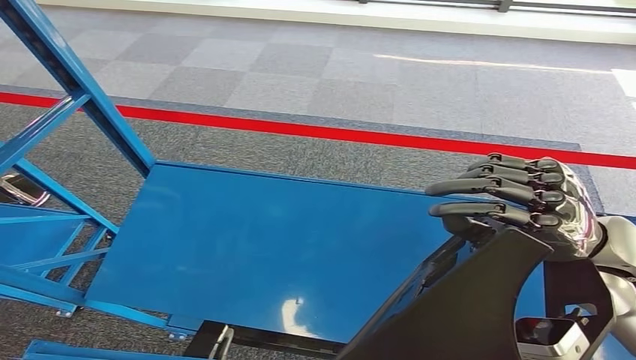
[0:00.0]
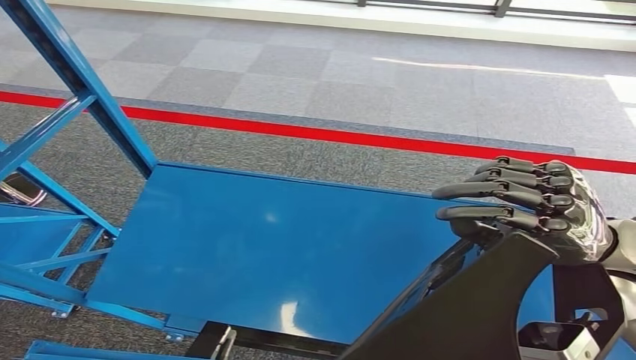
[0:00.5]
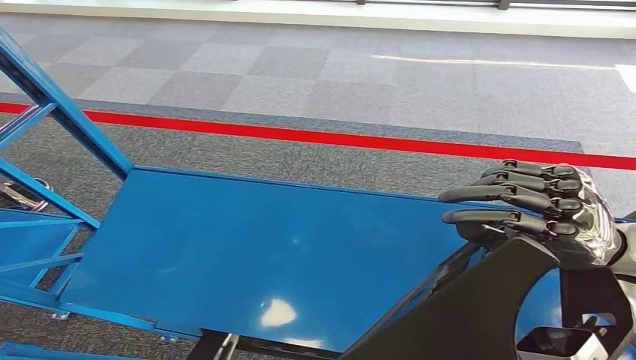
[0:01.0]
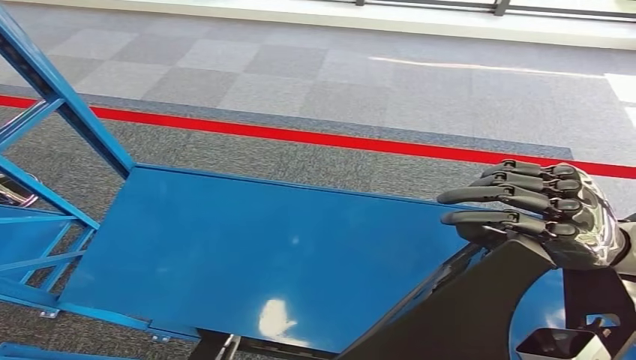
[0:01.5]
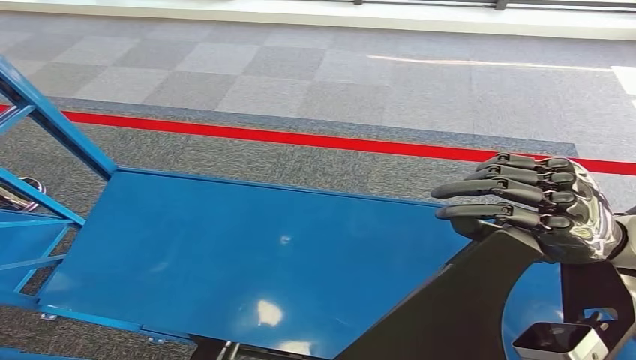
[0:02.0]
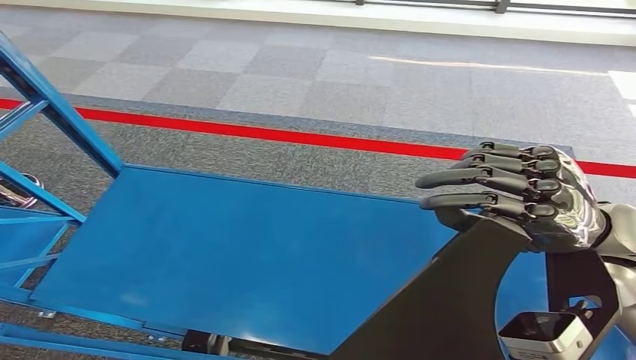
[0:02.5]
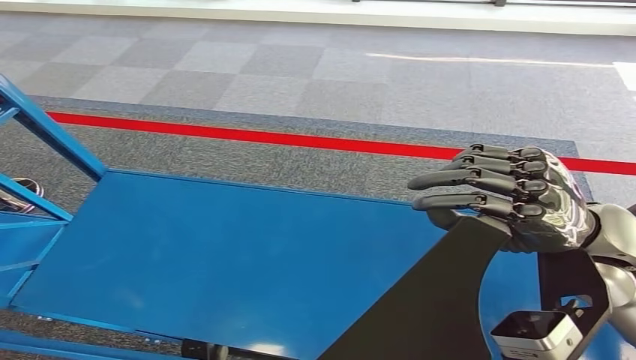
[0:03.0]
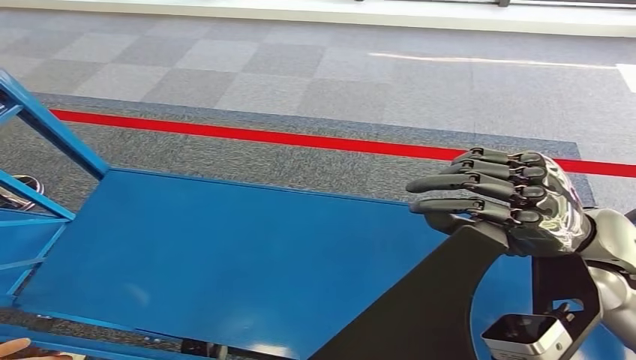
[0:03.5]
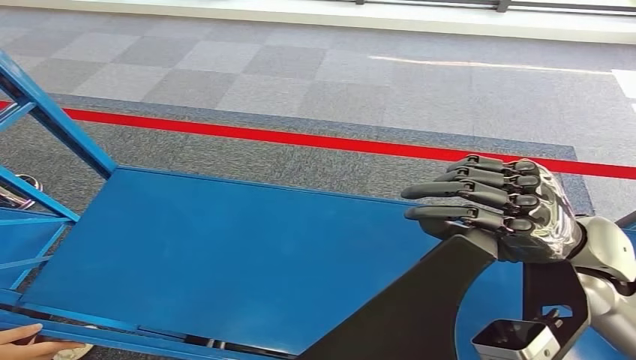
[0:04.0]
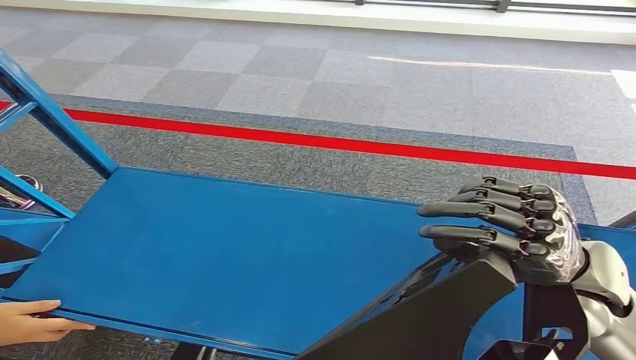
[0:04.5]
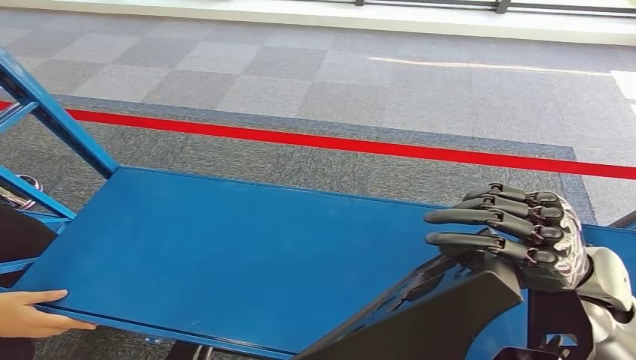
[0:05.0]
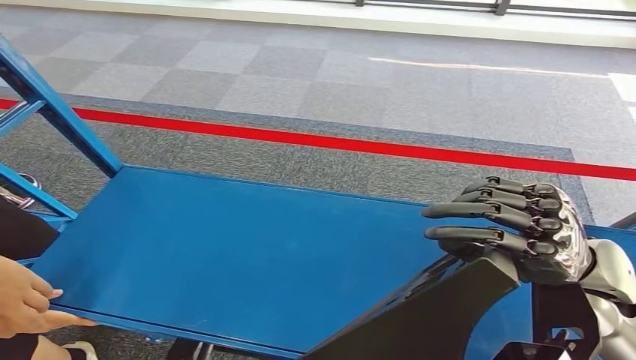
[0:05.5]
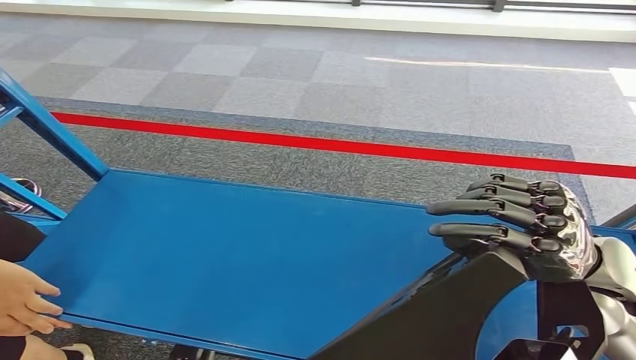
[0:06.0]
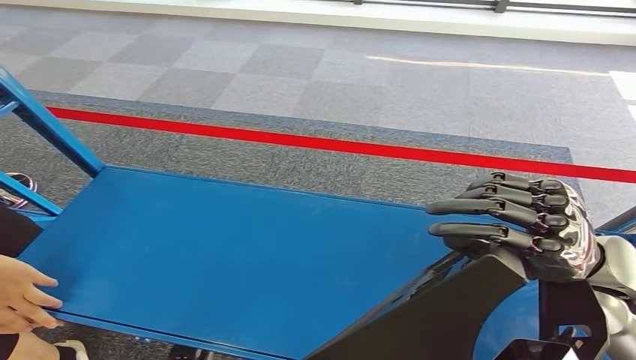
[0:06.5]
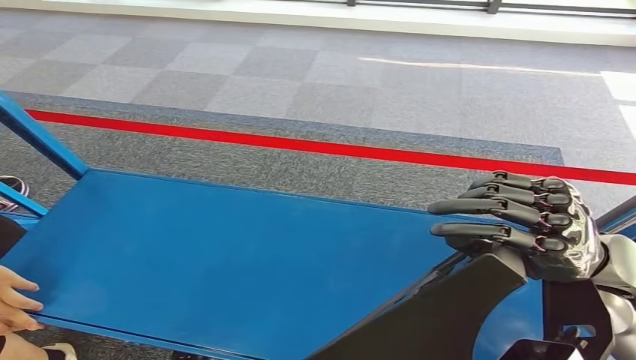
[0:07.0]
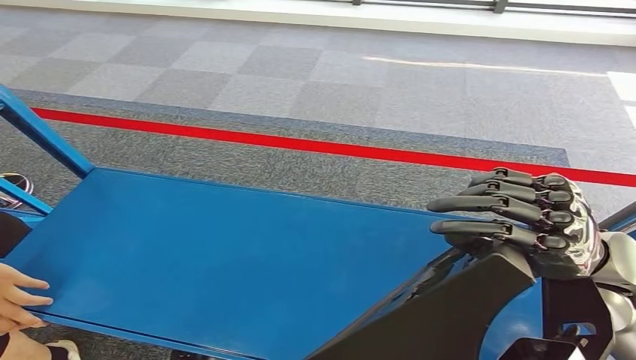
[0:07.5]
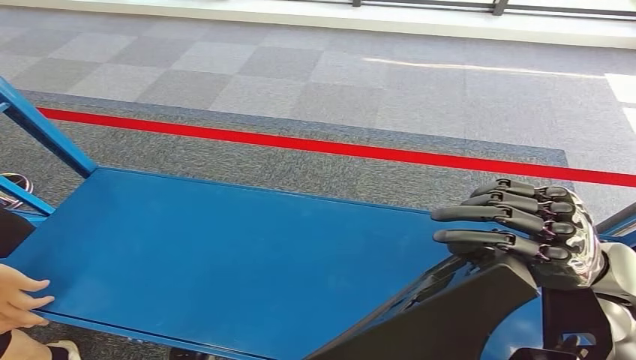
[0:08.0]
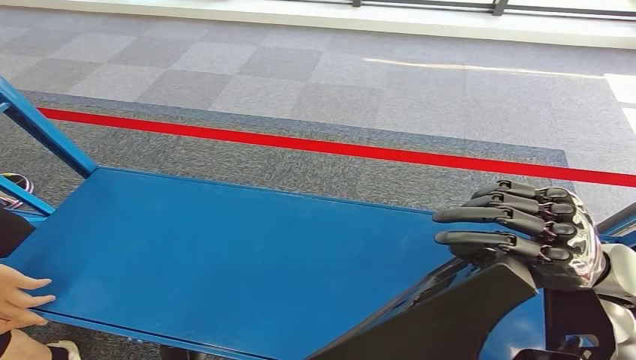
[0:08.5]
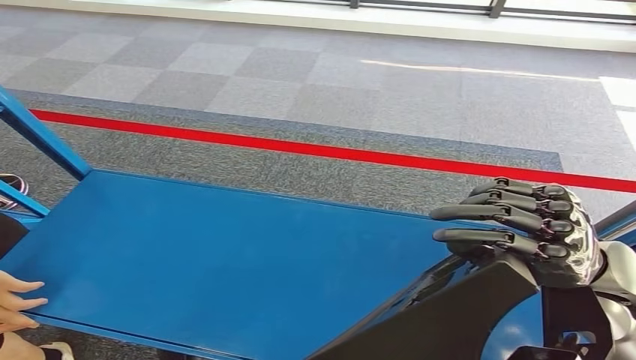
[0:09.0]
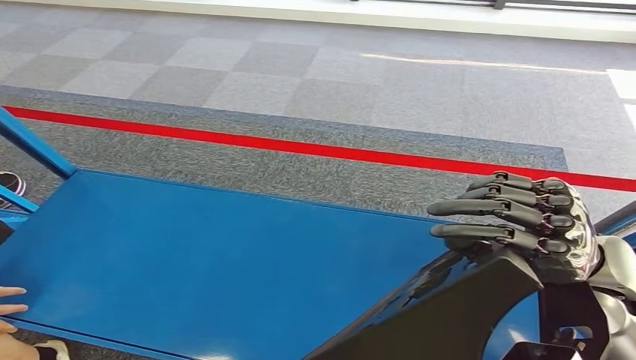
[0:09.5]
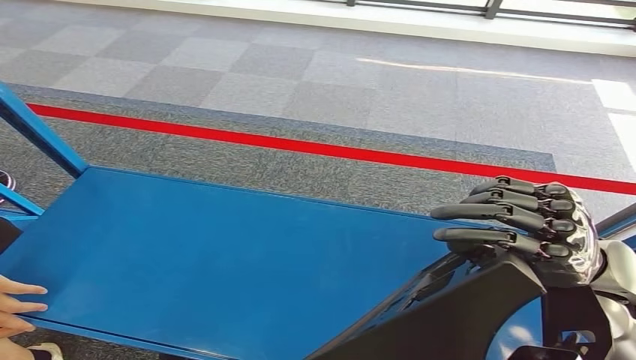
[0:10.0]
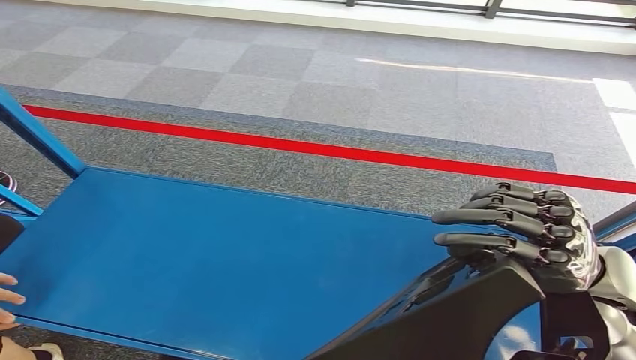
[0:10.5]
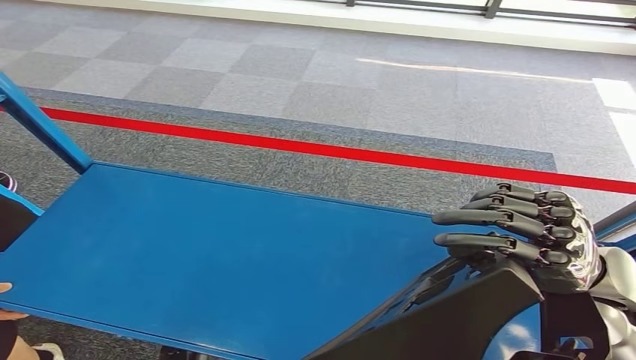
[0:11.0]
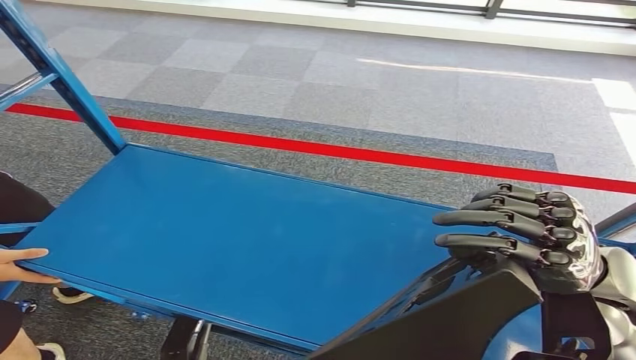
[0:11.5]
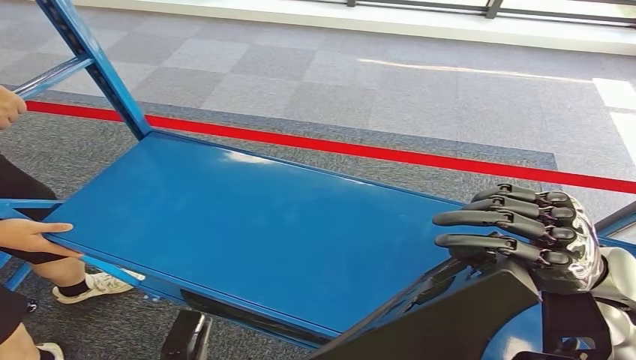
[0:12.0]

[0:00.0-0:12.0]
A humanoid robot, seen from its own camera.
0:06.0 to 0:08.0: Neither hand changes place.
0:08.0 to 0:10.0: The hands stay close to where they were, moving slightly.

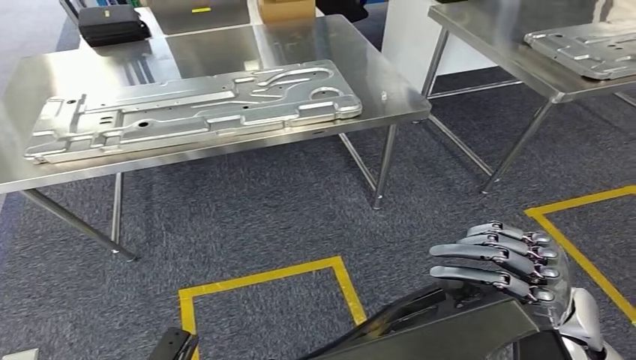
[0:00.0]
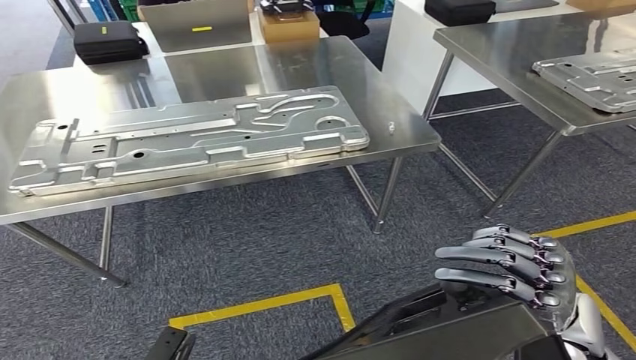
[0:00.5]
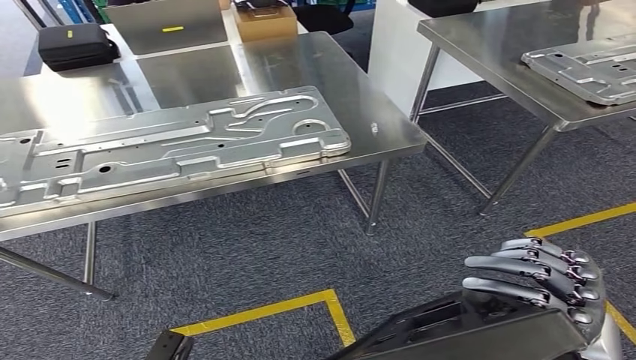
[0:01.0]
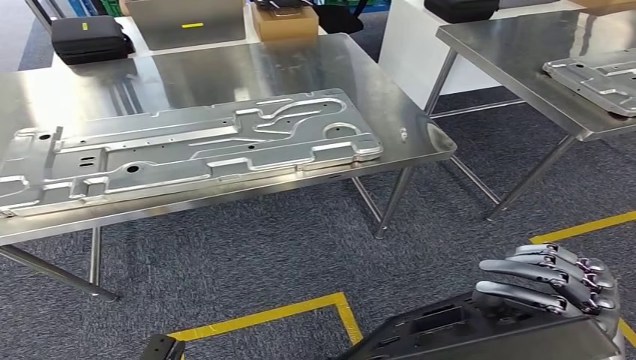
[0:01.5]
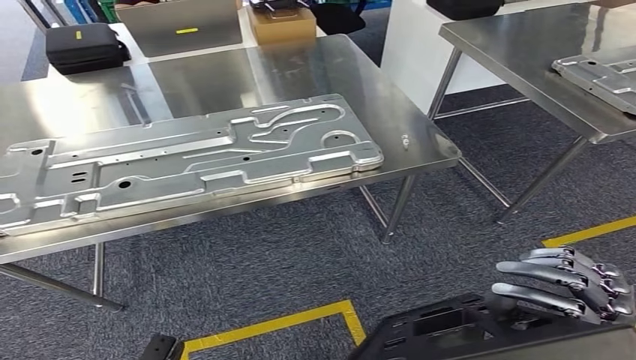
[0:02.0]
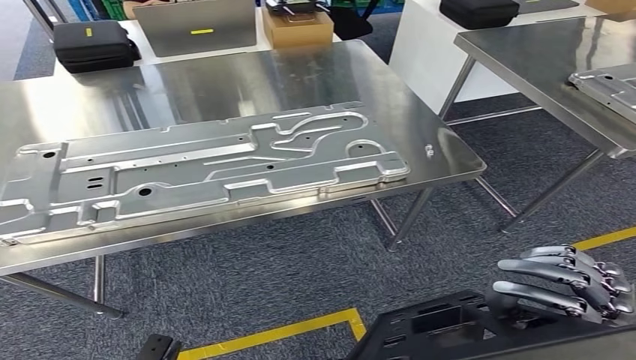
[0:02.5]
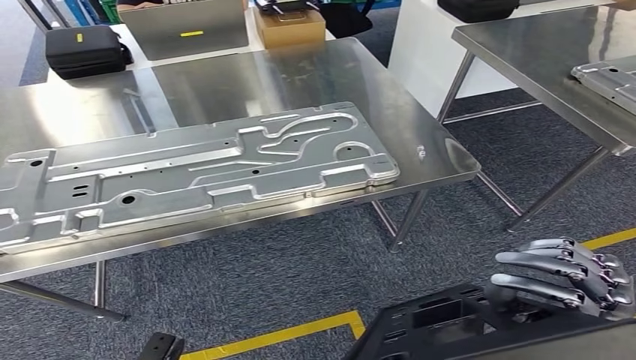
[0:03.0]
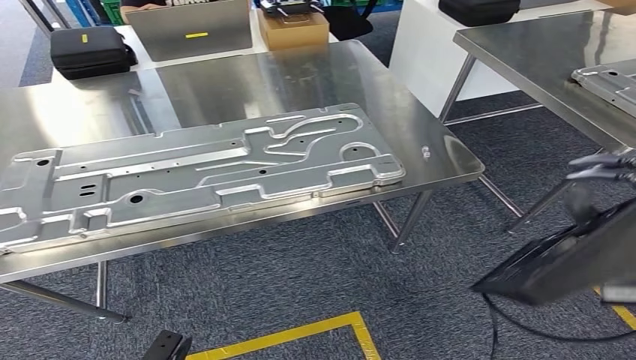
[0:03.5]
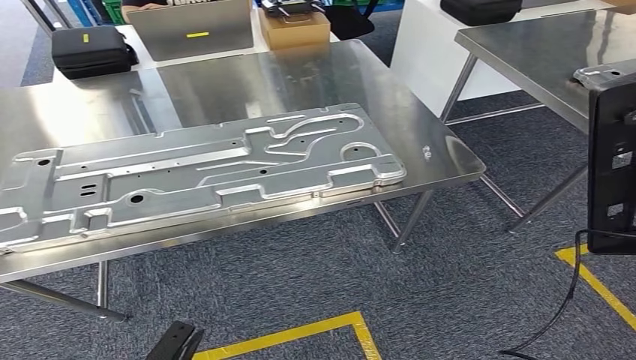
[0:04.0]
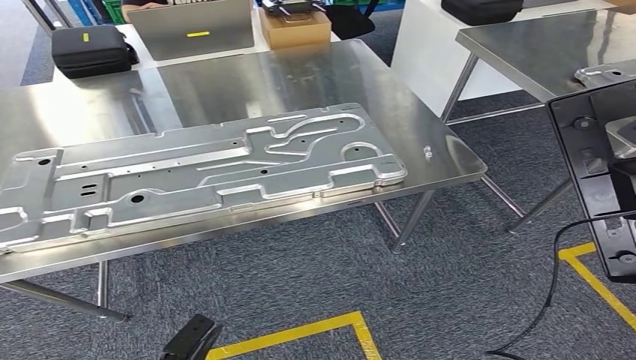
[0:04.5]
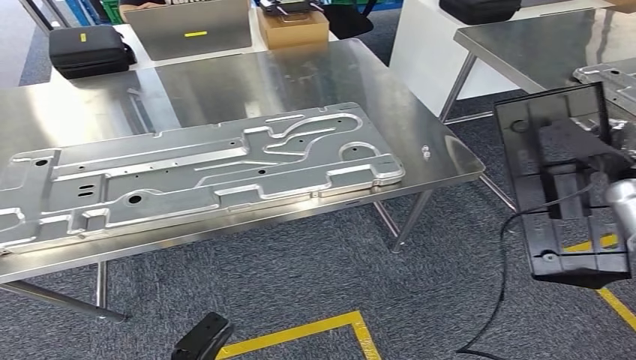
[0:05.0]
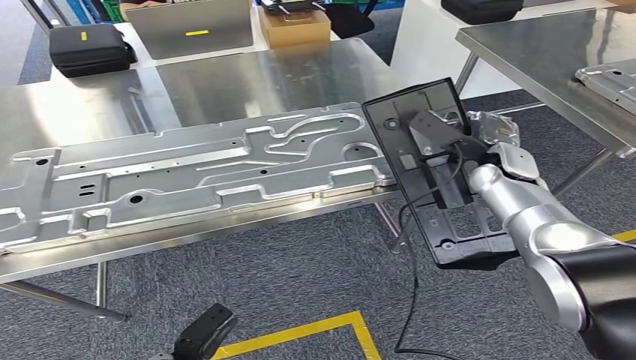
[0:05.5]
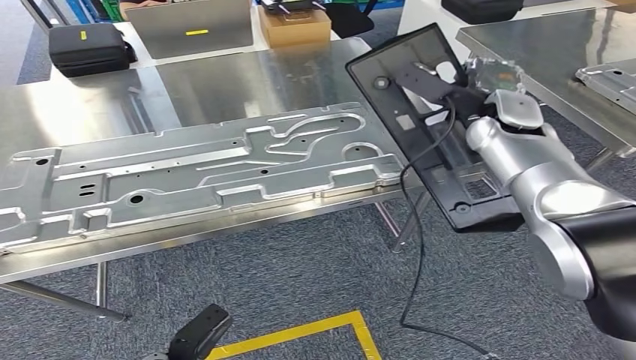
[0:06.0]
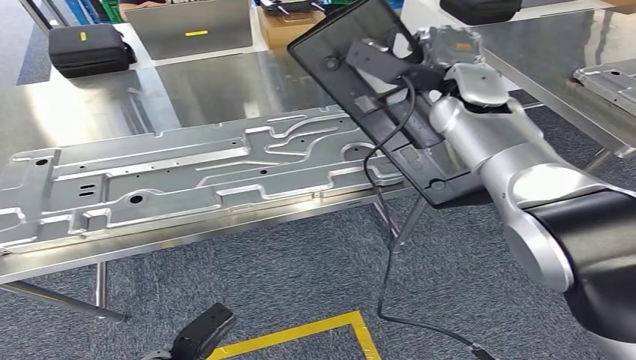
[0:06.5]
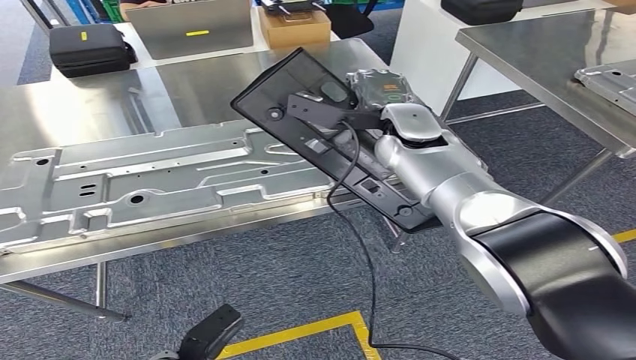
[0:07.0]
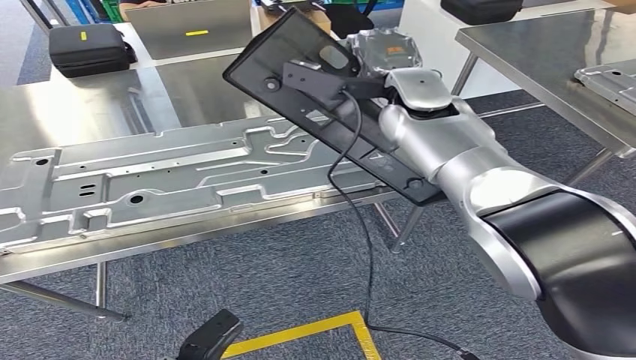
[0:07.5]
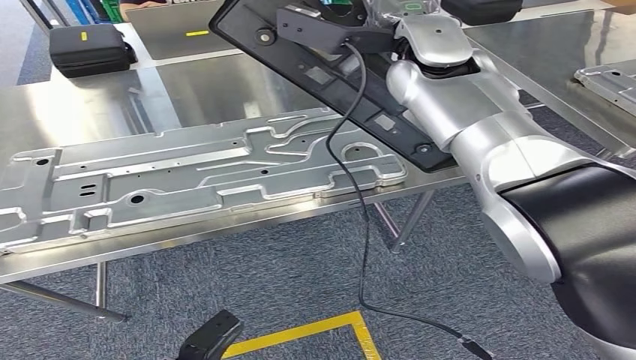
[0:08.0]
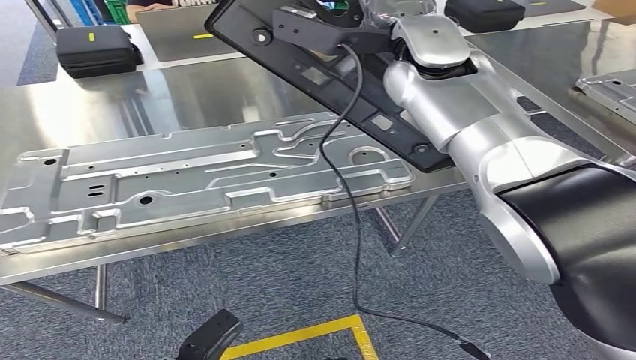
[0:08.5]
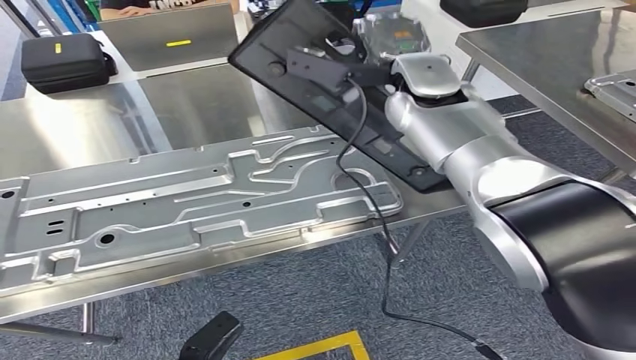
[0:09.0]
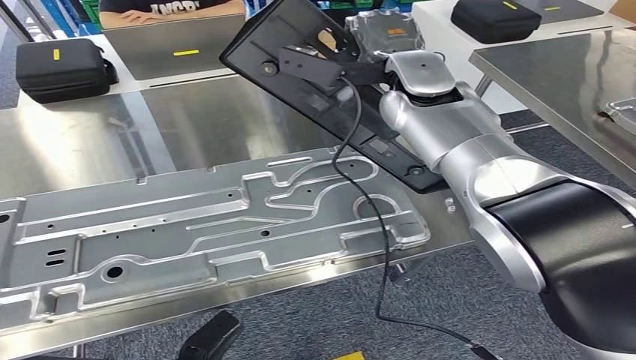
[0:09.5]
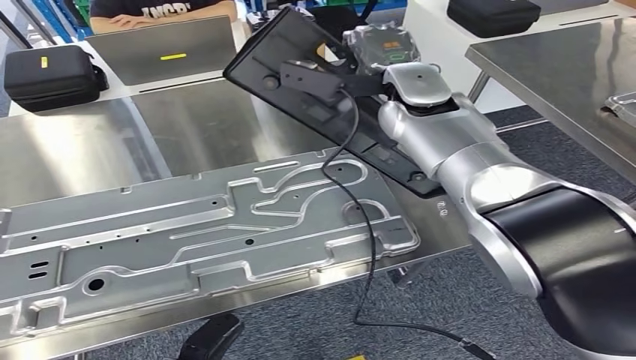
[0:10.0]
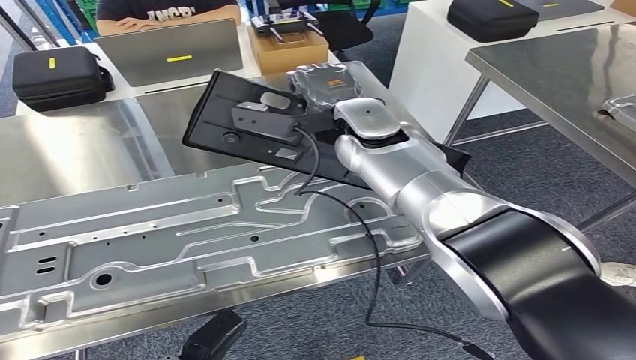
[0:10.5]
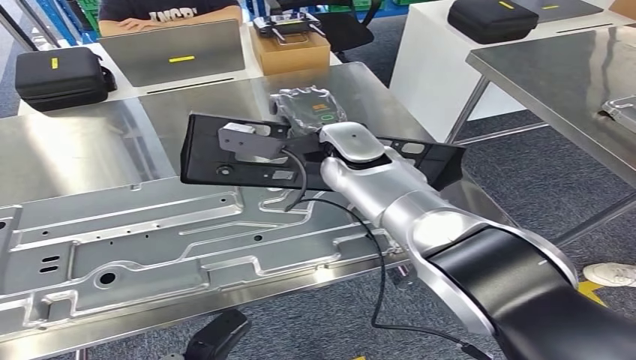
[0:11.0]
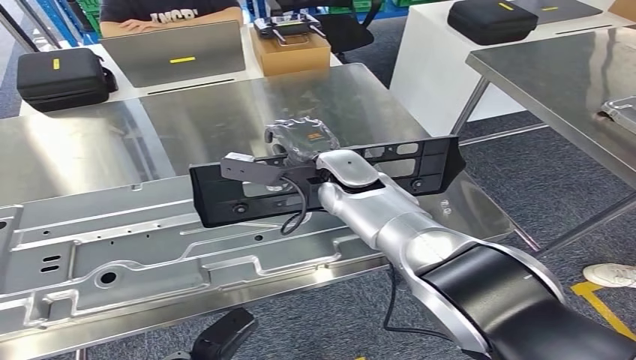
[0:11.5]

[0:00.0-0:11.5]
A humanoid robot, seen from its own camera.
Step, 0:00.0 to 0:09.0: Move the large material to the workbench.
